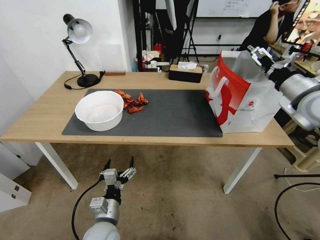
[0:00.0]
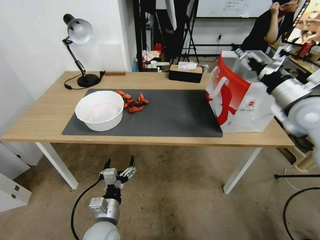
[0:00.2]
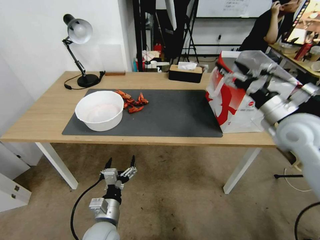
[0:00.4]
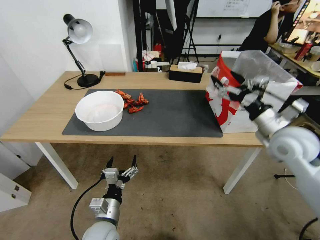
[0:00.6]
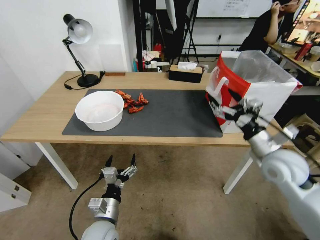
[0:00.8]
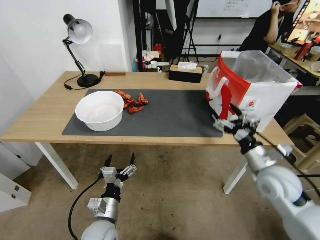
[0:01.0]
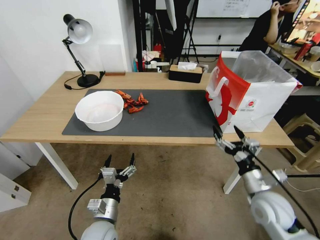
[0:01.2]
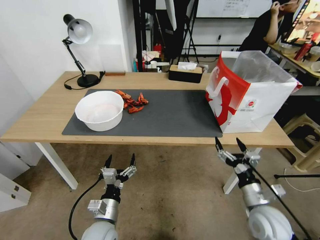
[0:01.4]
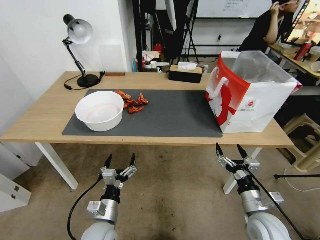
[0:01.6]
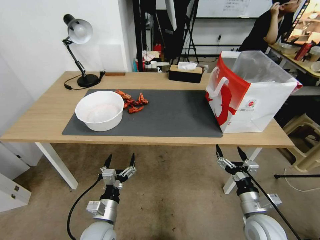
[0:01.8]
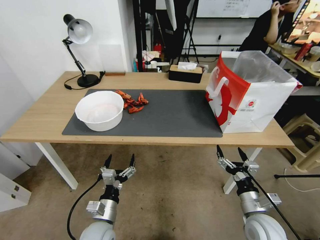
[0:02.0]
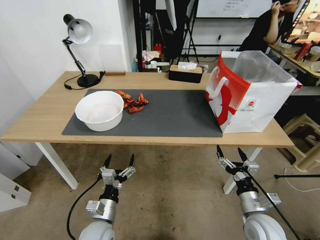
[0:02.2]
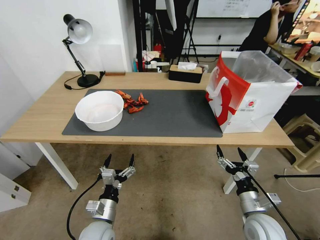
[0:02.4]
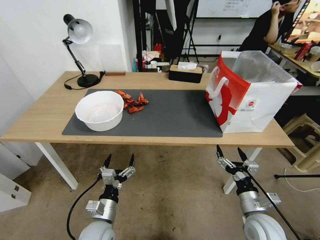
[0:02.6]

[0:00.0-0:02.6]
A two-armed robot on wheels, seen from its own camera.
Task of the whole recording: Close the takeout container lid, then place the container into the takeout bag.
0:00.0 to 0:01.2: The right gripper moves downward and backward, roughly 25 cm.
0:01.2 to 0:02.6: The right gripper travels downward and backward by about 10 cm.
